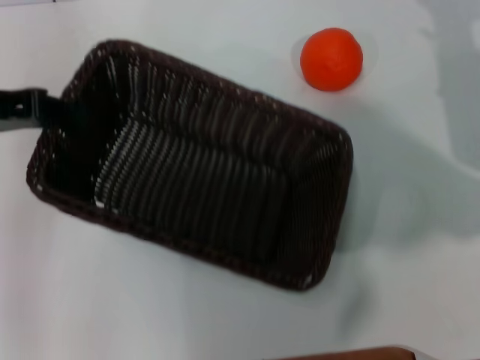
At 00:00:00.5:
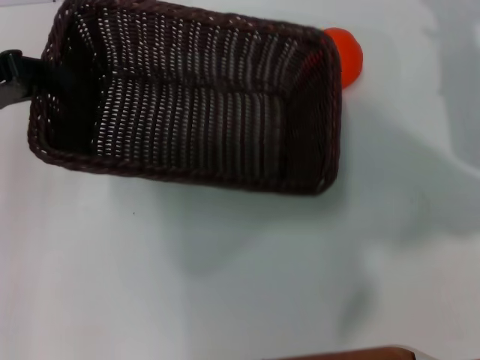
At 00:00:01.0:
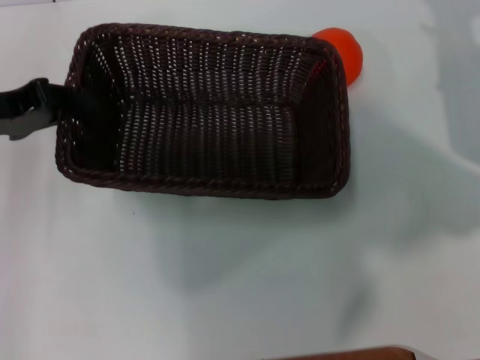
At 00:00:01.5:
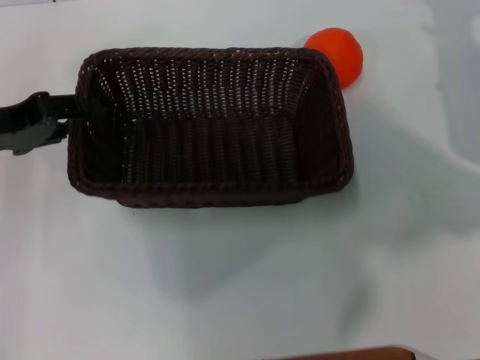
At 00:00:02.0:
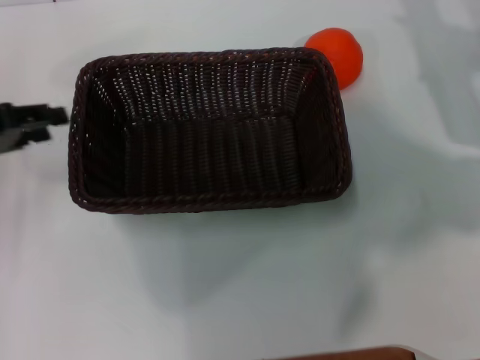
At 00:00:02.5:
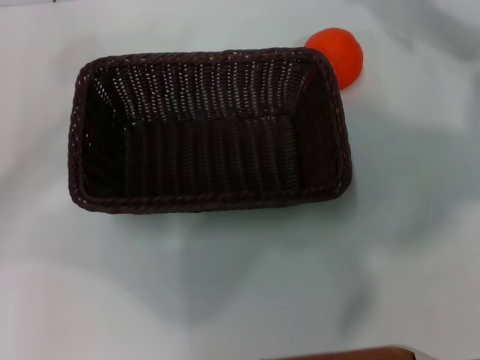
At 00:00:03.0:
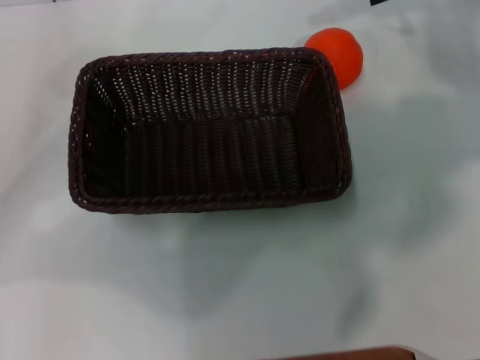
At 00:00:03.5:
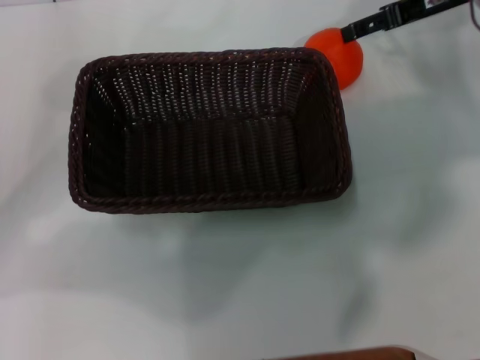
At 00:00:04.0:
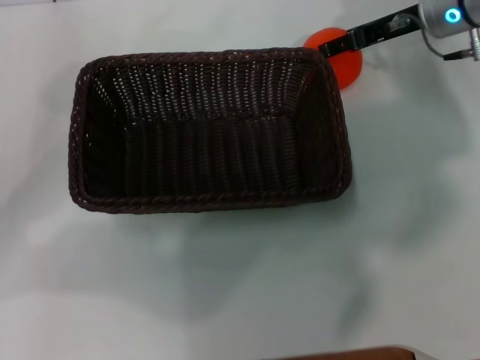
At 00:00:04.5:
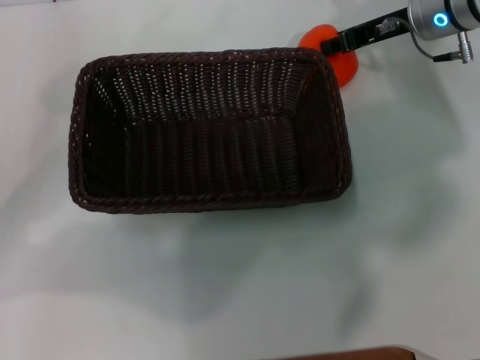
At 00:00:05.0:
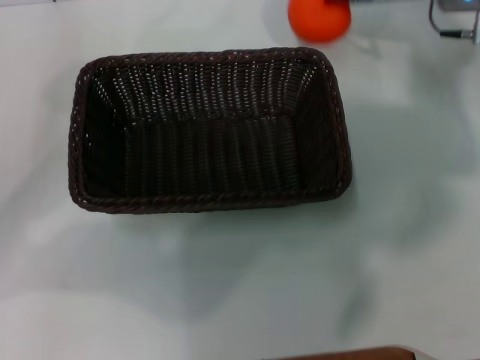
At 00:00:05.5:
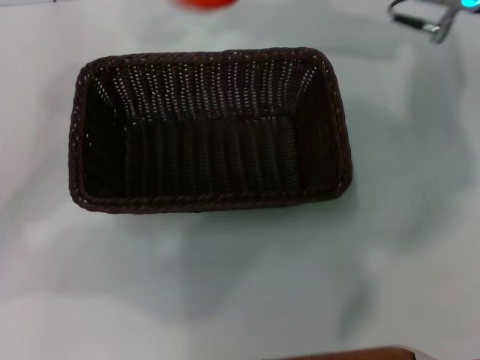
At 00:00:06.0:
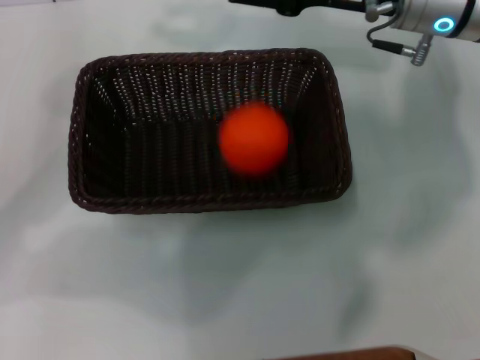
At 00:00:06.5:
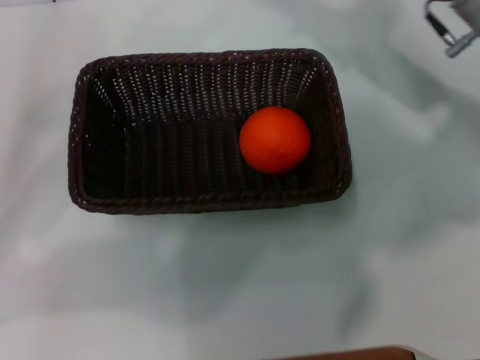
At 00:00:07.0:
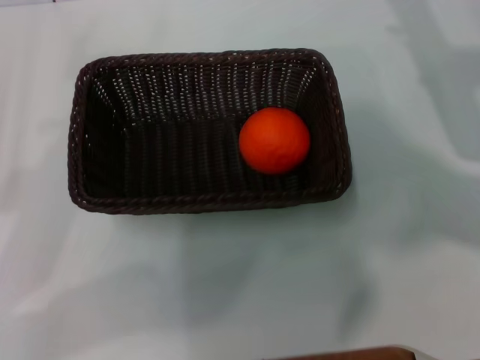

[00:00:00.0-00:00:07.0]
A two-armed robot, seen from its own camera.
Task of the whole recording: the left gripper pick up the black basket and place it horizontally in the middle of the table, the right gripper pick up the orange and place it into the black basket.
Step, 00:00:00.0 to 00:00:01.5: Place the dark basket in the center of view with the left gripper.
Step, 00:00:02.0 to 00:00:04.5: Pick up the orange with the right gripper.
00:00:00.0 to 00:00:02.0: The left gripper heads downward, covering roughly 5 cm, and opens up.
00:00:02.0 to 00:00:03.5: The left gripper opens up. Meanwhile the right gripper shifts about 10 cm upward and forward.
00:00:03.5 to 00:00:05.0: The right gripper closes.
00:00:05.0 to 00:00:07.0: The left gripper shifts roughly 5 cm backward. Meanwhile the right gripper goes some 10 cm backward and to the right, and opens its fingers.
